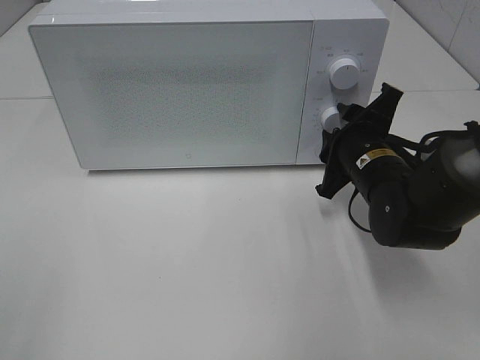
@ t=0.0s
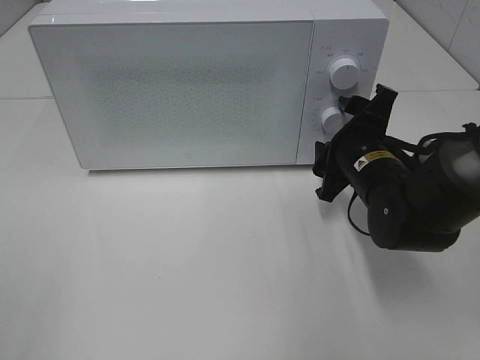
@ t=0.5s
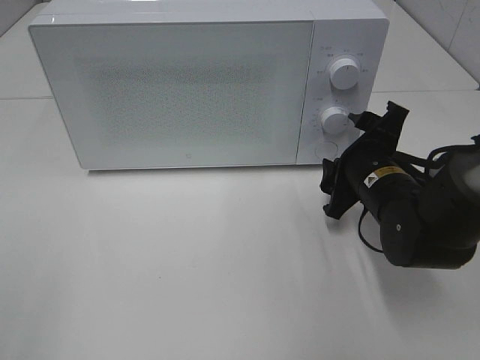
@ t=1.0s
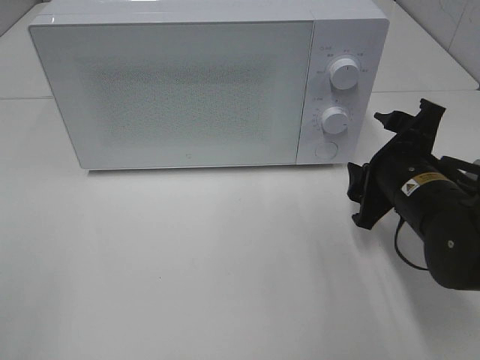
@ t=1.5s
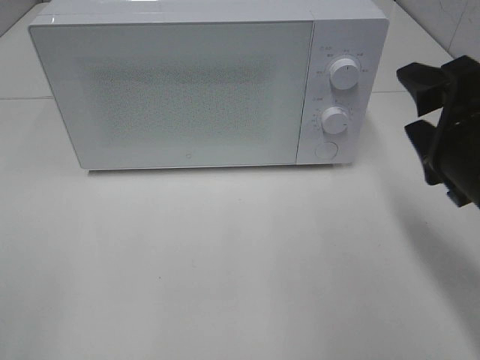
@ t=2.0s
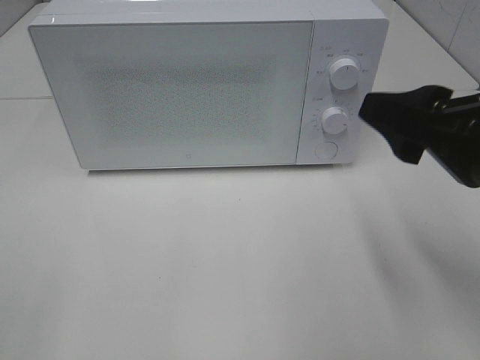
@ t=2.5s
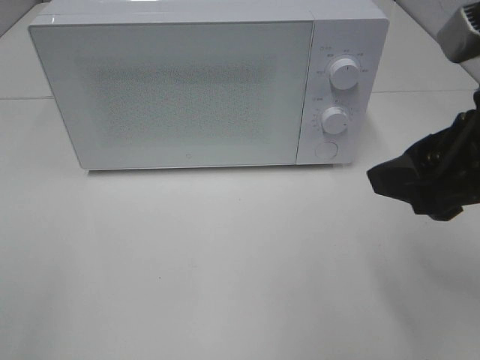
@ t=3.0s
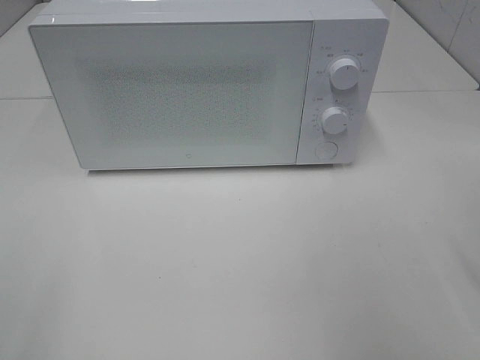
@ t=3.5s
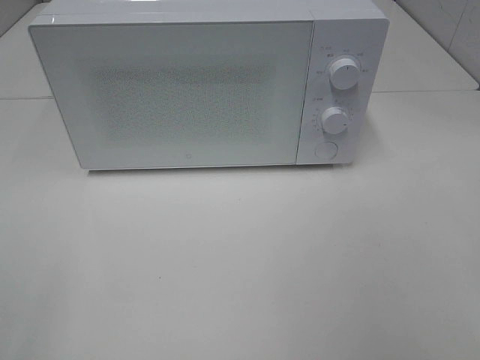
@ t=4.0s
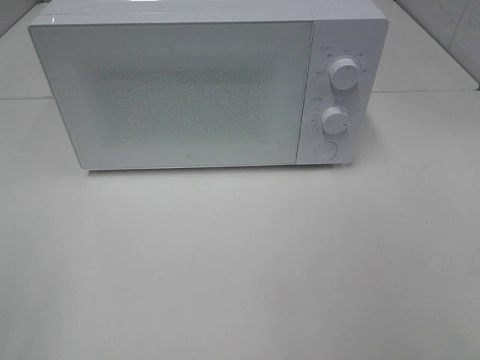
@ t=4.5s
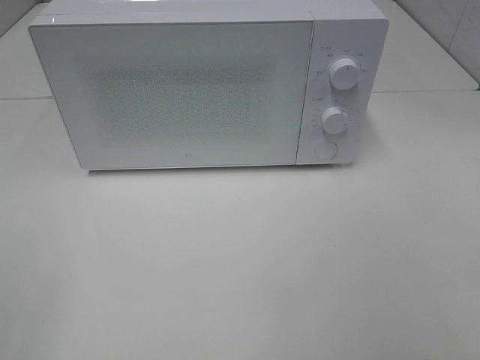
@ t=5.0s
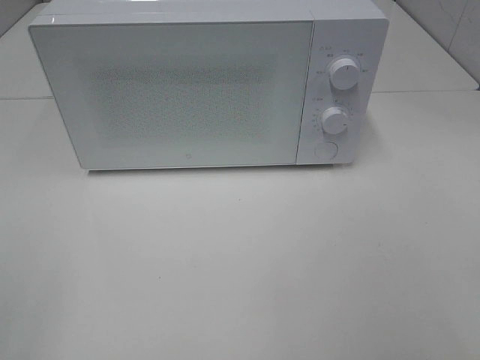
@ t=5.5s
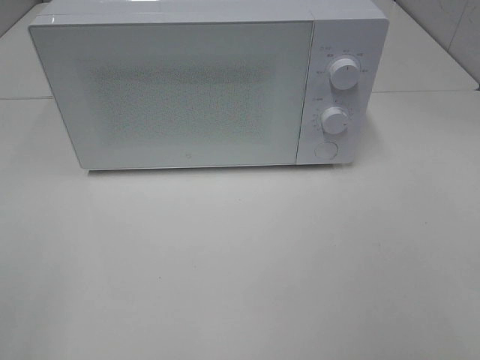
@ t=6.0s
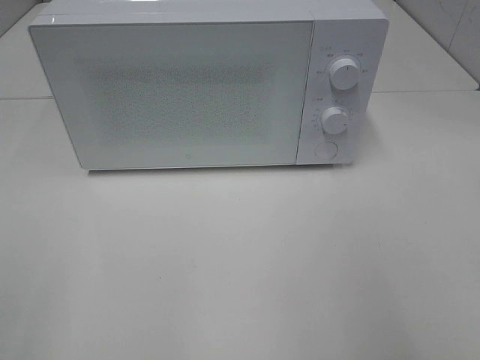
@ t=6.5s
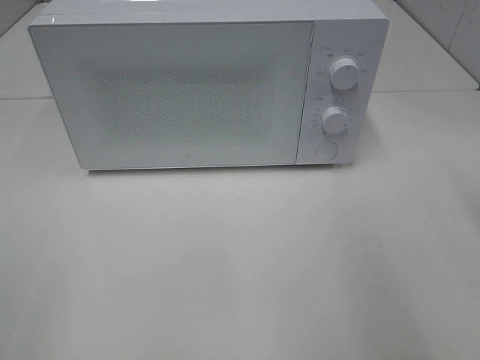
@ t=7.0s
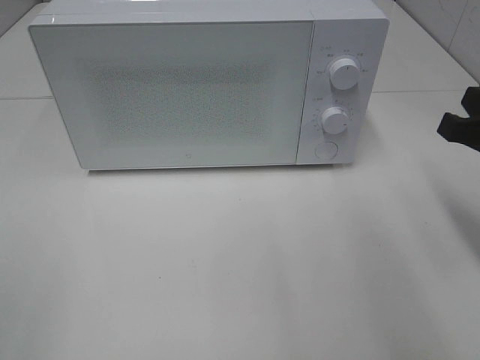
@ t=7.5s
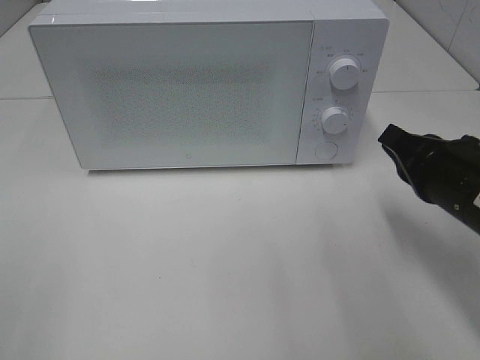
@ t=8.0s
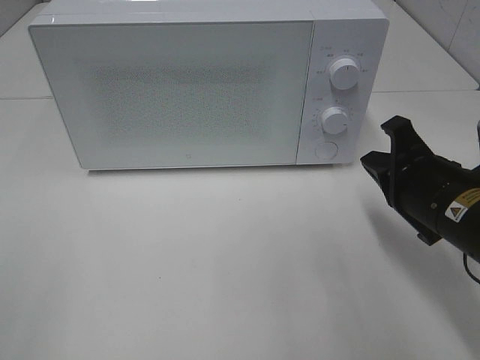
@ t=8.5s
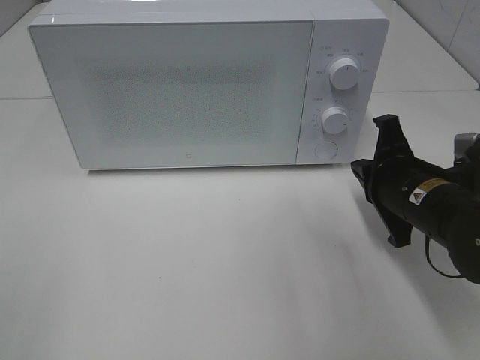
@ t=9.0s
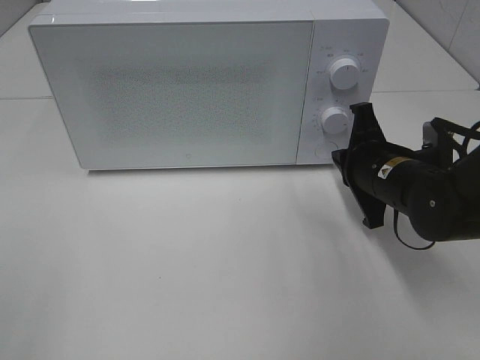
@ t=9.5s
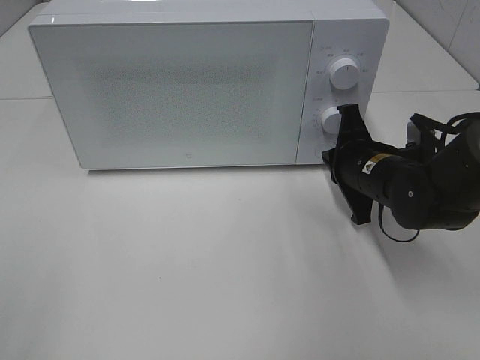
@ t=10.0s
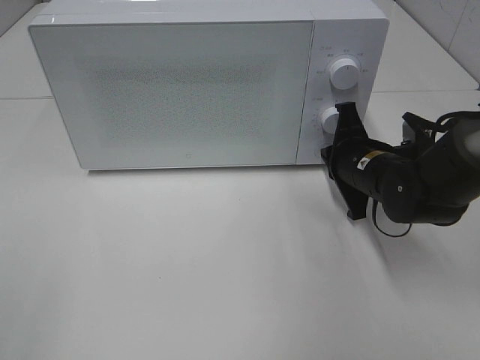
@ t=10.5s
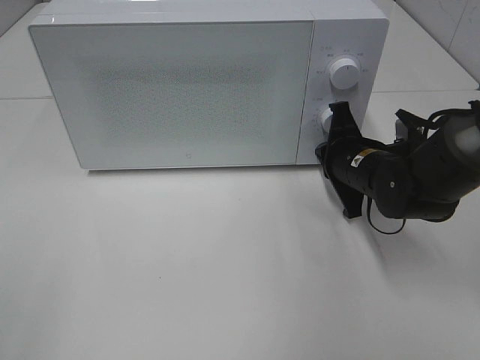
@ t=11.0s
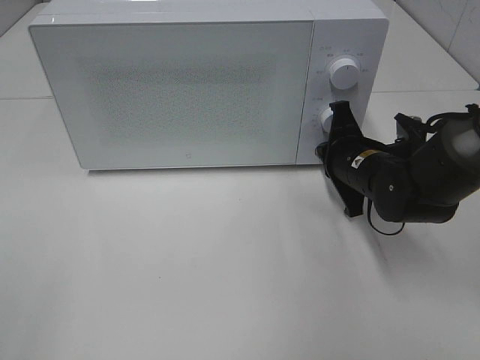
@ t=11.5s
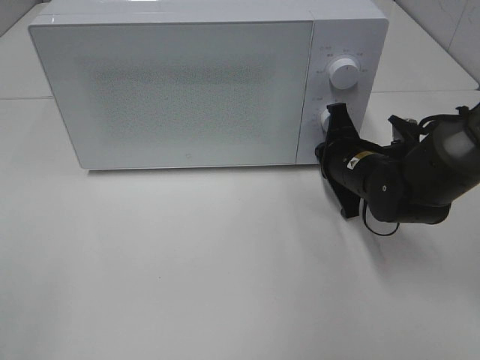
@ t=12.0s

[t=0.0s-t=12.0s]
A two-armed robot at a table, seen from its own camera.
Task of the whole recording: Heat the burger.
t=0.0s to t=2.0s: The right gripper moves backward, upward and to the right, roughly 15 cm.
t=2.0s to t=4.0s: The right gripper moves upward, to the right and backward, about 15 cm.
t=6.0s to t=8.0s: The right gripper heads forward and downward, covering about 25 cm, and closes up.
t=8.0s to t=10.0s: The right gripper is displaced forward and downward by roughly 10 cm.
t=10.0s to t=12.0s: There are only small adjustments of the grippers.

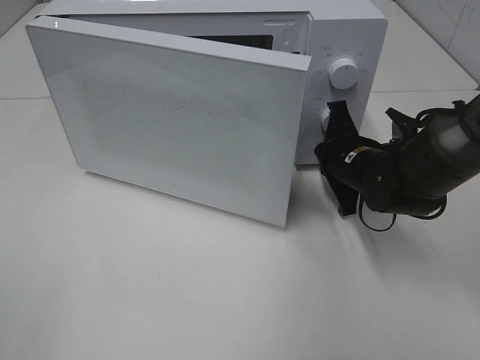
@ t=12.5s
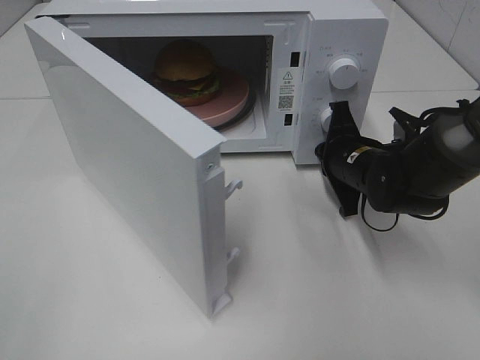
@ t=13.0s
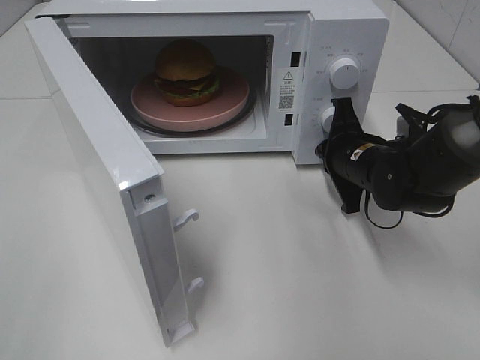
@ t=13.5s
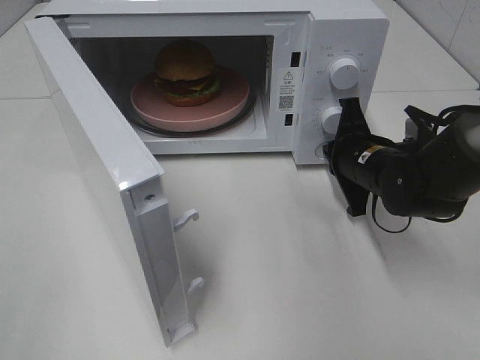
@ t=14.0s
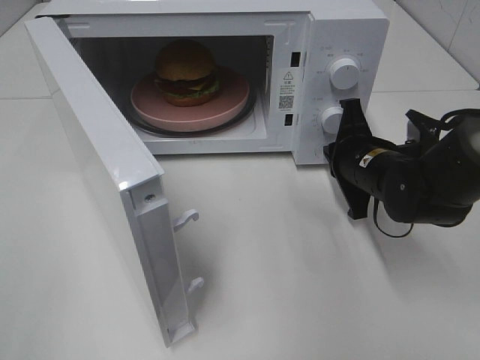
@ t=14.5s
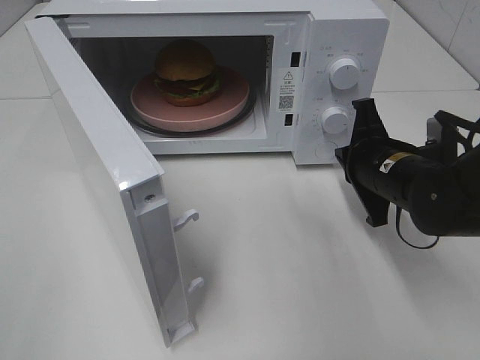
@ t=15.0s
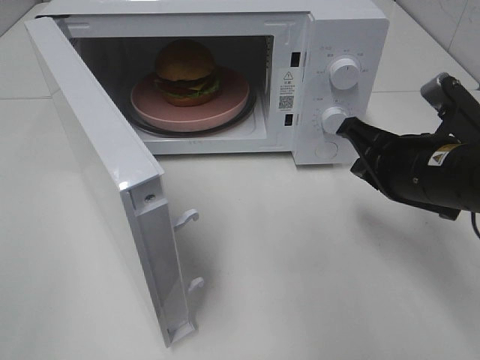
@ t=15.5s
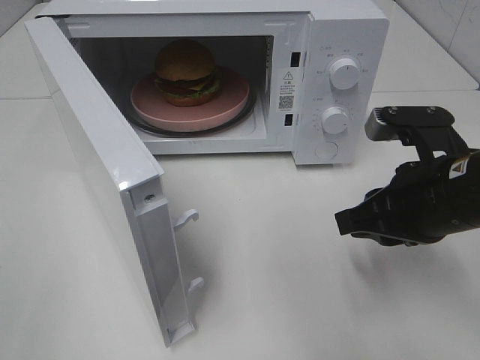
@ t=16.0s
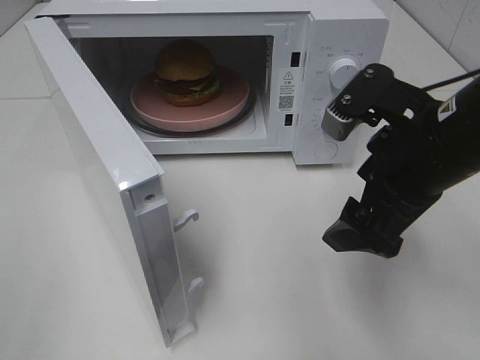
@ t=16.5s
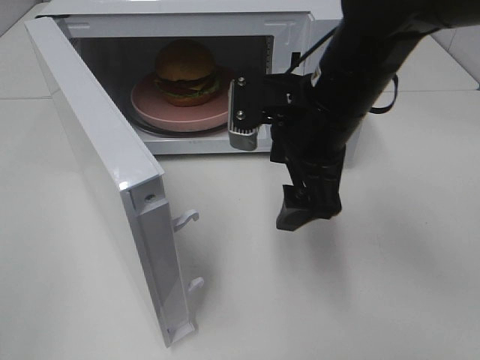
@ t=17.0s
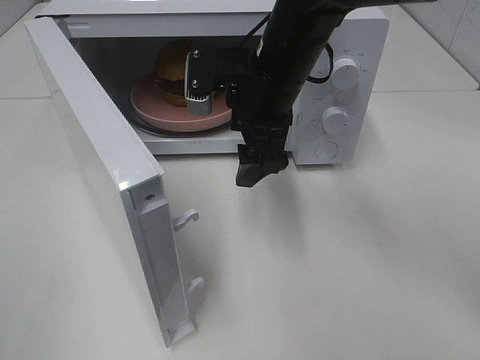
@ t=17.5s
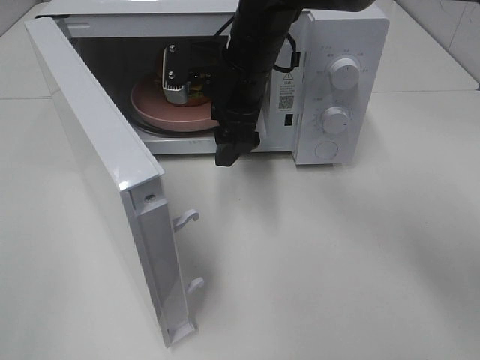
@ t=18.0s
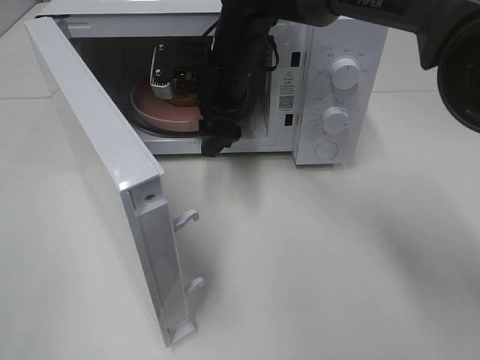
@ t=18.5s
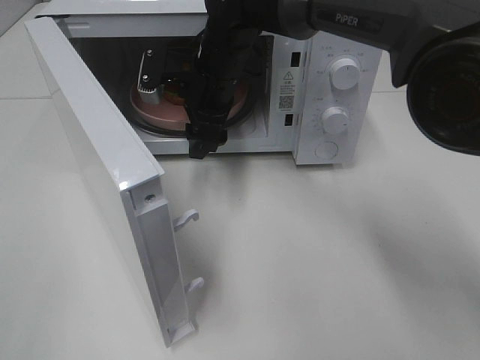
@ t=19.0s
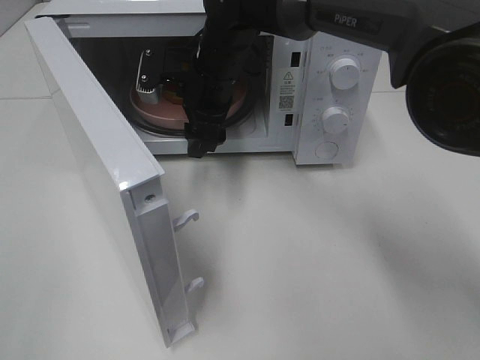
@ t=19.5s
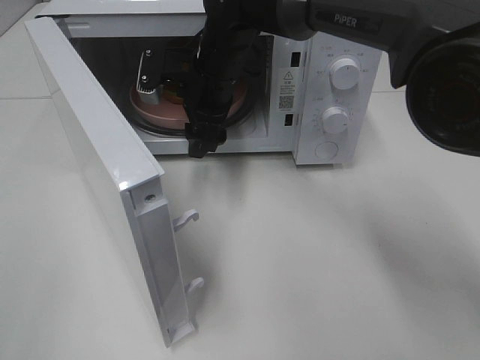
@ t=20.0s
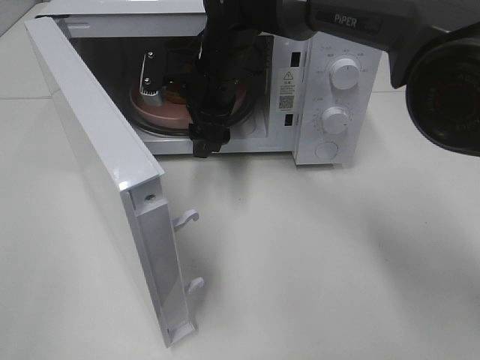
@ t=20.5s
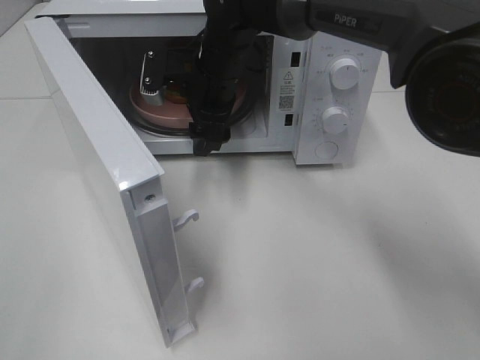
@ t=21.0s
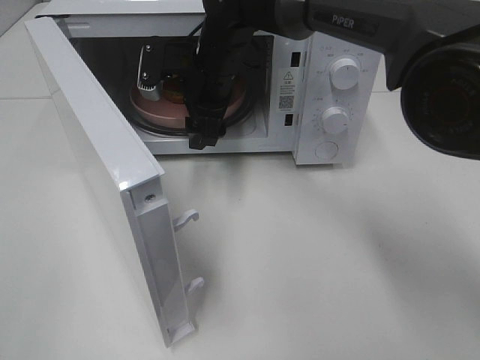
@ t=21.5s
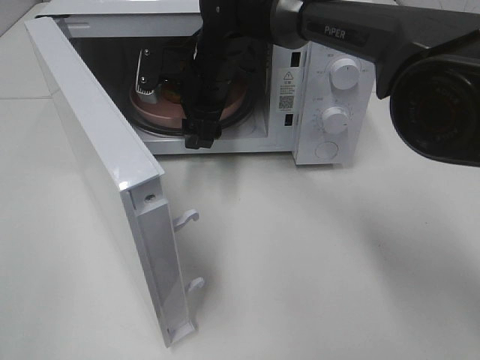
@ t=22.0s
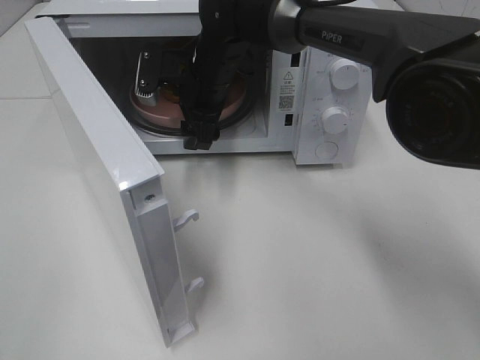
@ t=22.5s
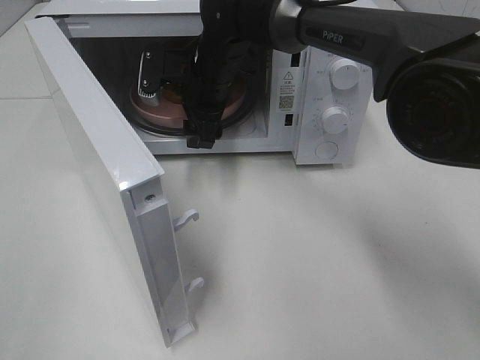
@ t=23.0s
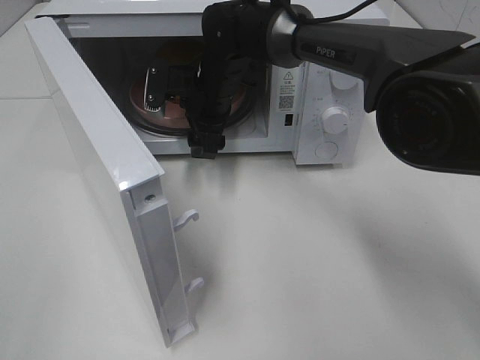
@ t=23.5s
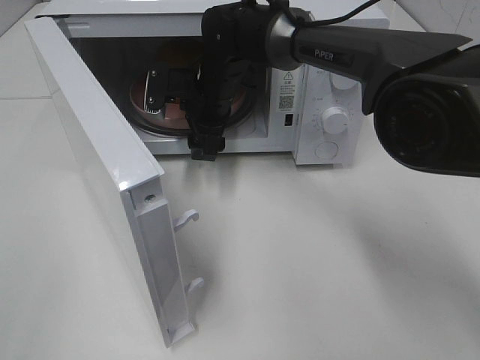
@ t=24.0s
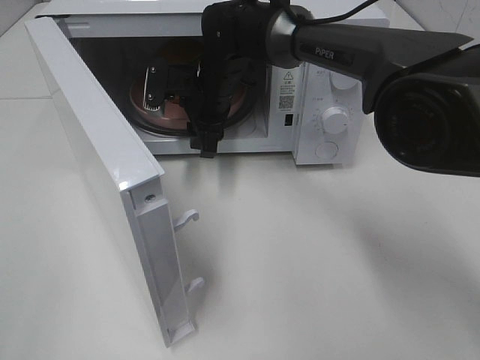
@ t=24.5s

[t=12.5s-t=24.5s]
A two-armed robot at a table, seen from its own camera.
Task of the whole recording: Heat the burger.
Step, t=12.5s to t=14.5s: Right hand: press the switch.
t=14.5s to t=16.5s: The right gripper shifts roughly 15 cm upward and backward, and opens its fingers.
t=16.5s to t=18.5s: The right gripper heads forward and to the left, covering roughly 25 cm.
t=18.5s to t=24.5s: The grippers make only small movements.

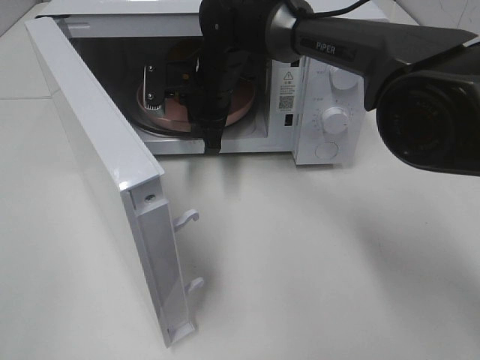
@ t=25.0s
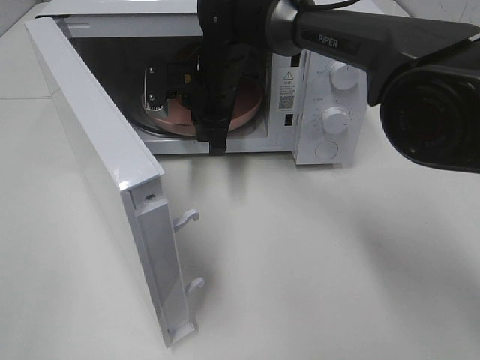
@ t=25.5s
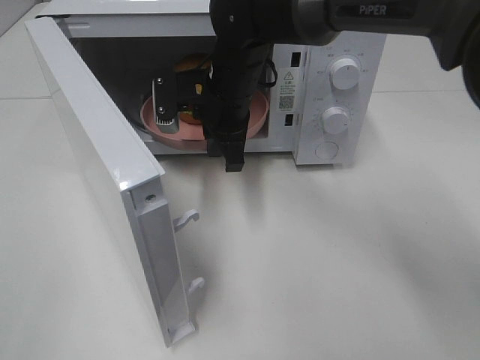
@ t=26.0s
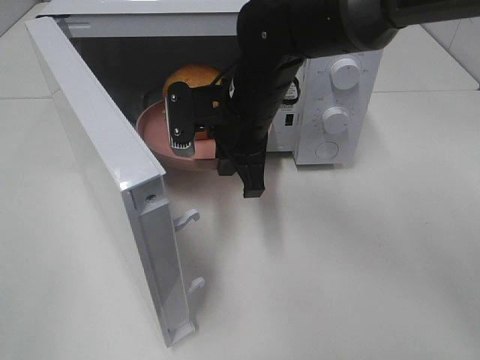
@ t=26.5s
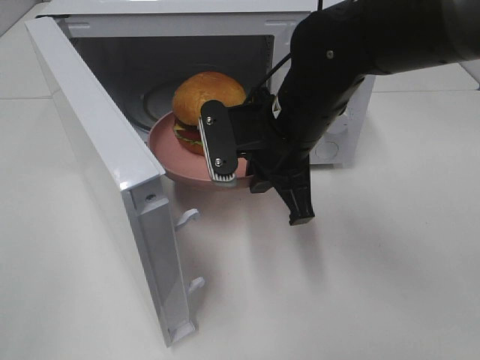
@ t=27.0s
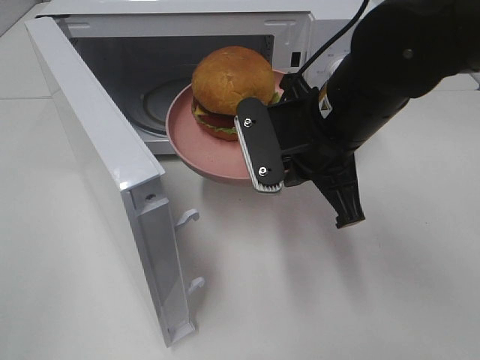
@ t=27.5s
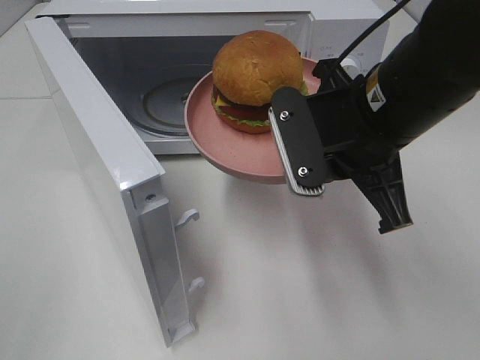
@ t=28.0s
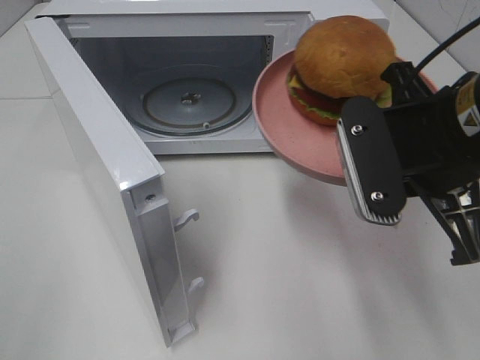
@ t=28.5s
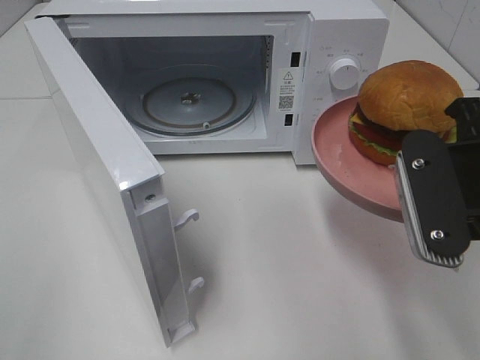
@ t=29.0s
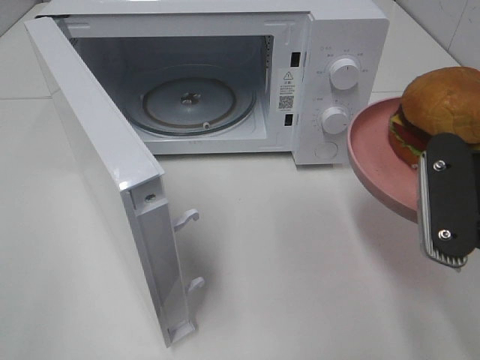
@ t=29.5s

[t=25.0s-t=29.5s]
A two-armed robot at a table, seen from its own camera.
Task of the whole recording: Heat the burger.
t=25.0s to t=27.0s: The right gripper shifts about 15 cm backward and to the right.
t=27.0s to t=29.5s: The right gripper is displaced to the right and backward by approximately 20 cm.
